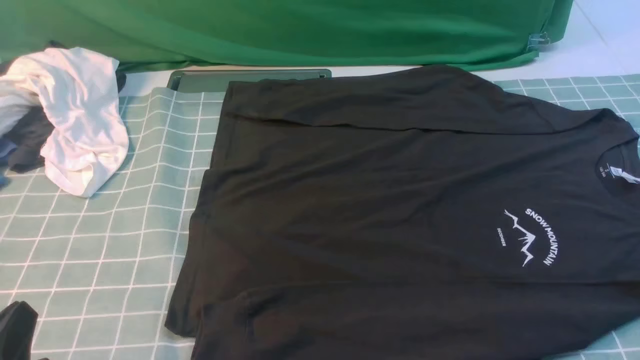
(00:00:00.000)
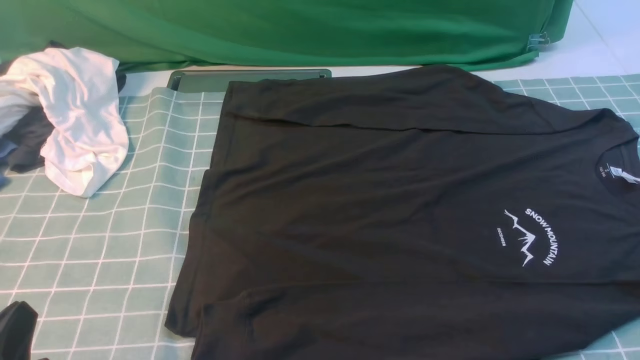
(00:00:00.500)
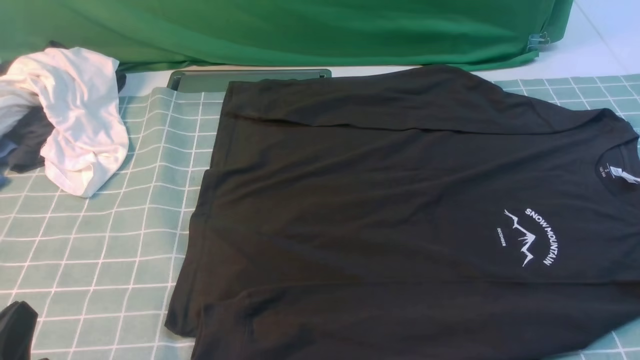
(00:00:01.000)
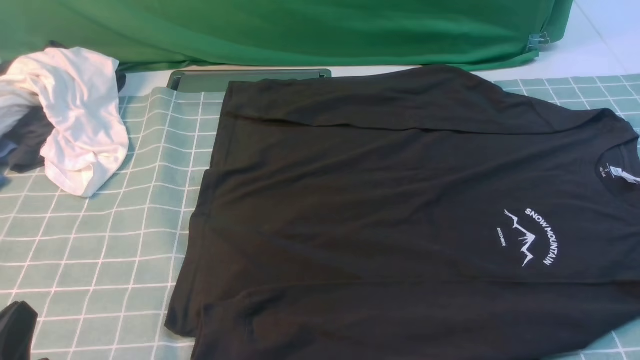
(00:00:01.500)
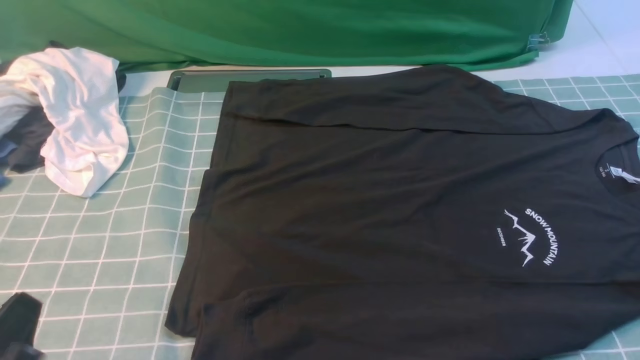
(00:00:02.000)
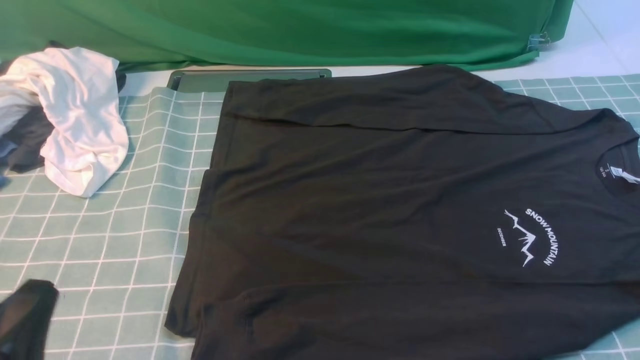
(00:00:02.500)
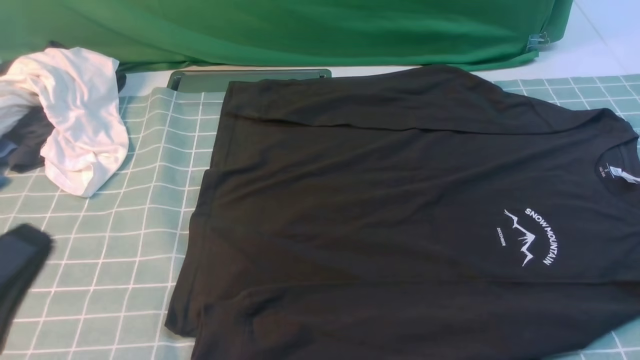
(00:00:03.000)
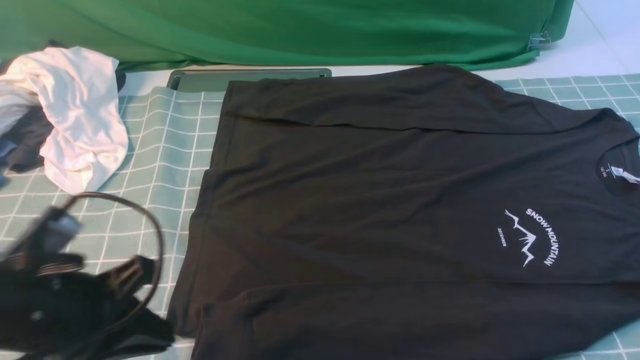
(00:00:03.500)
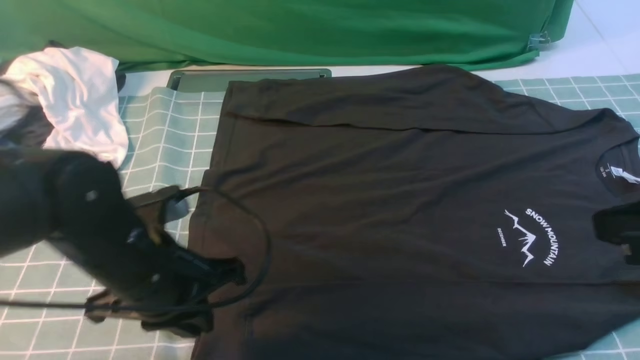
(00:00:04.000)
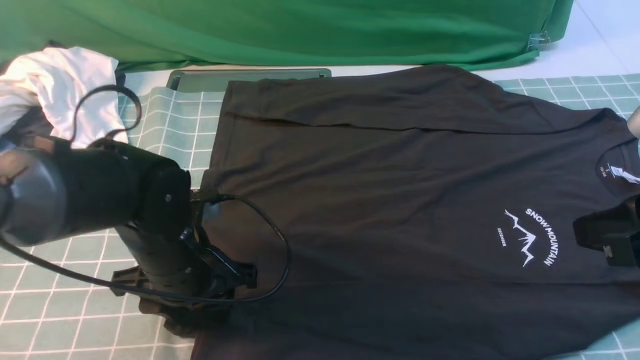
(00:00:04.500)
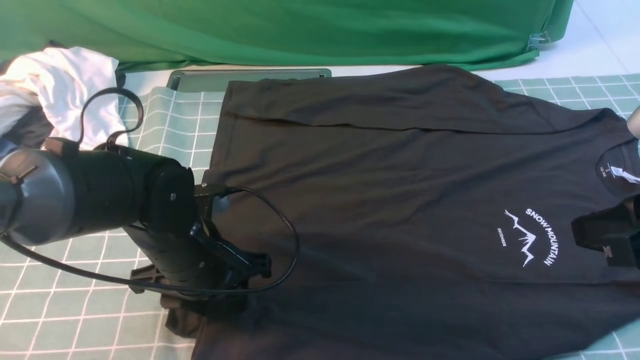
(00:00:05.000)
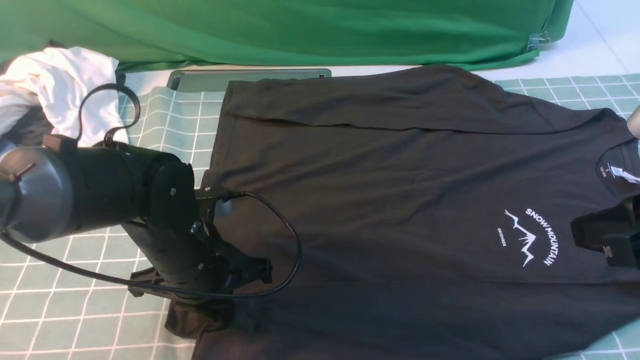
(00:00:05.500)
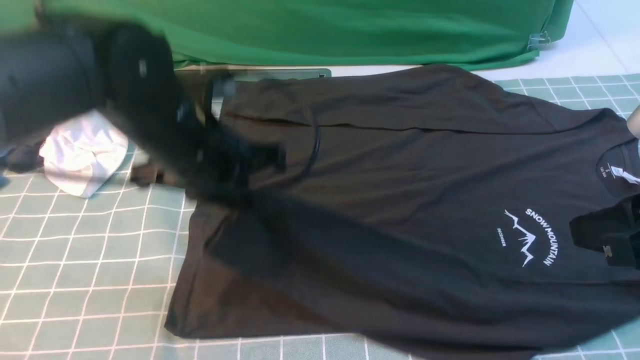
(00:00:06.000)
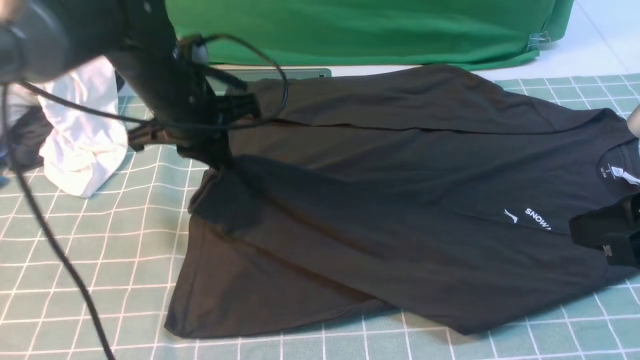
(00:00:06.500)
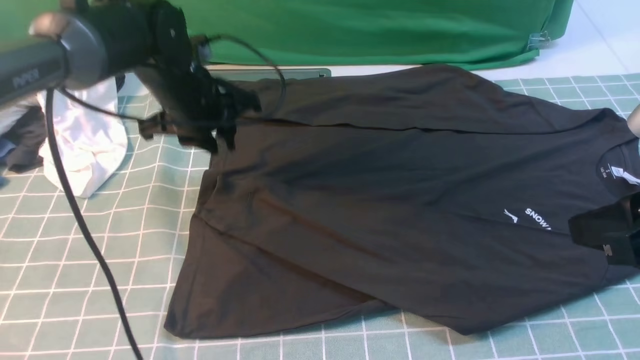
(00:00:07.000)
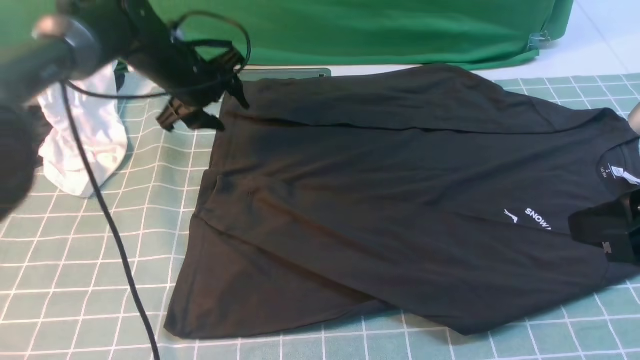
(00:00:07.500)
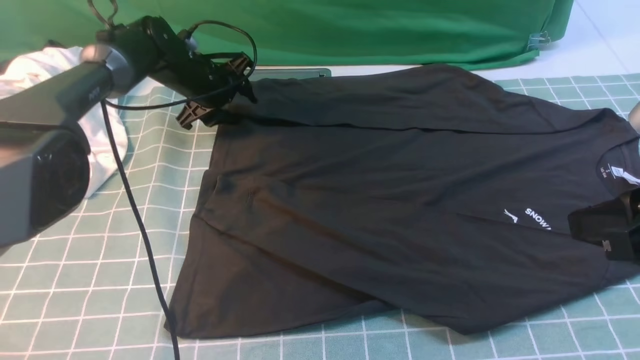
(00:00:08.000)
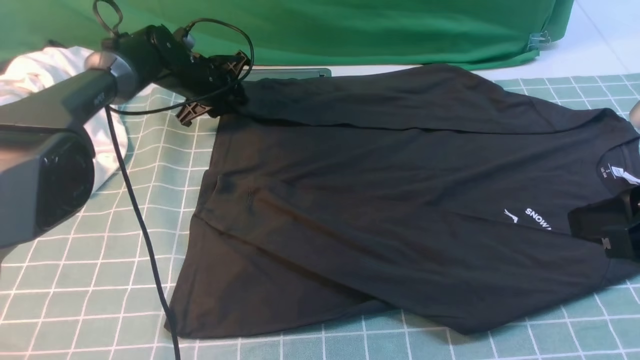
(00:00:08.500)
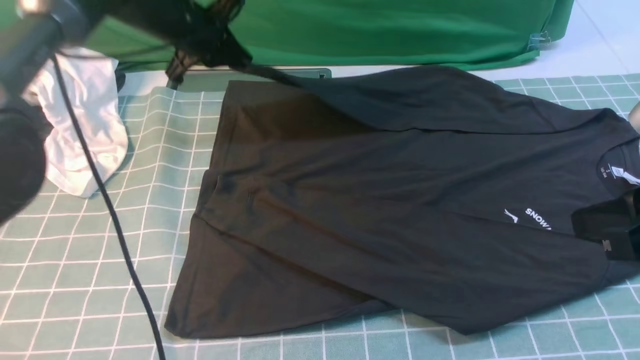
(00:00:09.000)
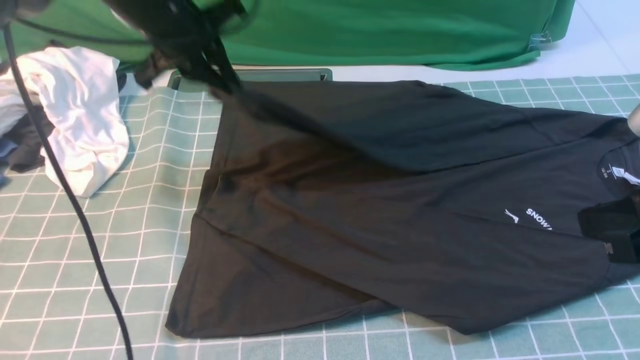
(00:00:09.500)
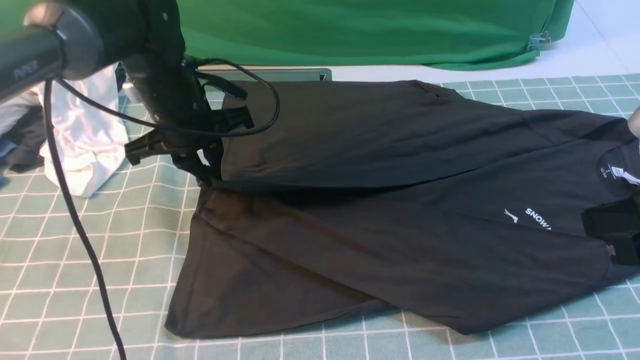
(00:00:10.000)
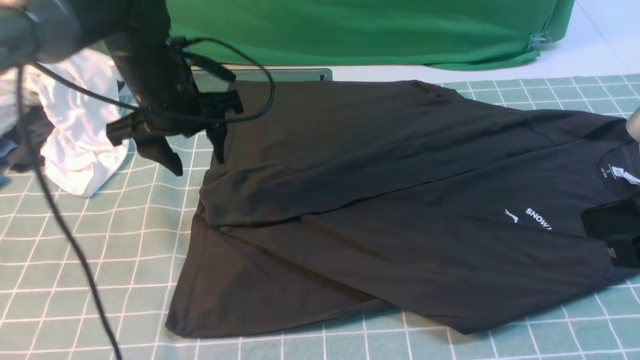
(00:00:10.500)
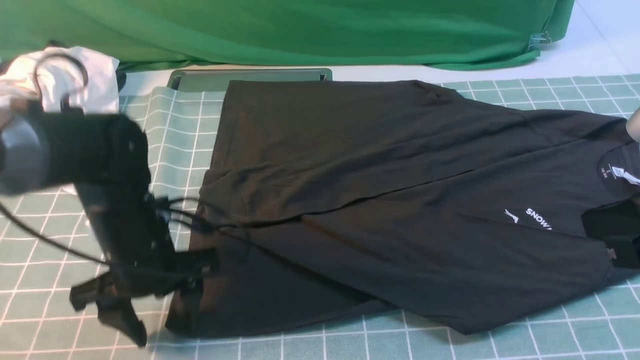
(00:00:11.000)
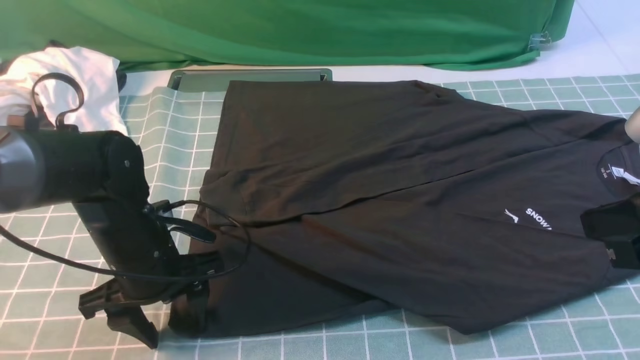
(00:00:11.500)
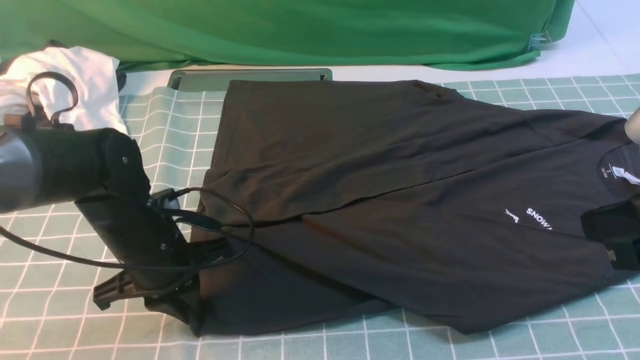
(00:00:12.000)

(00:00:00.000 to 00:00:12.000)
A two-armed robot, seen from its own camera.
Step, 00:00:00.000 - 00:00:05.000: use the left arm to clamp the cuff closest to it.
Step, 00:00:05.500 - 00:00:07.000: use the left arm to drag and place the cuff at the centered position on the left edge of the fabric.
Step, 00:00:07.500 - 00:00:08.500: use the left arm to clamp the cuff farthest from it.
Step, 00:00:09.000 - 00:00:10.000: use the left arm to drag and drop the cuff onto the cuff closest to the left arm.
00:00:02.000 - 00:00:04.000: The right gripper heads upward and forward, covering roughly 15 cm. The left gripper heads forward and to the right, covering approximately 20 cm.
00:00:04.000 - 00:00:06.000: The left gripper heads forward and upward, covering about 10 cm, and opens, then closes again.
00:00:06.000 - 00:00:08.000: The left gripper shifts approximately 25 cm forward and downward, and opens.
00:00:08.000 - 00:00:10.000: The right gripper closes its fingers. The left gripper heads backward and upward, covering about 15 cm, and closes its fingers.
00:00:10.000 - 00:00:12.000: The left gripper shifts roughly 15 cm backward and downward, and opens, then closes again.

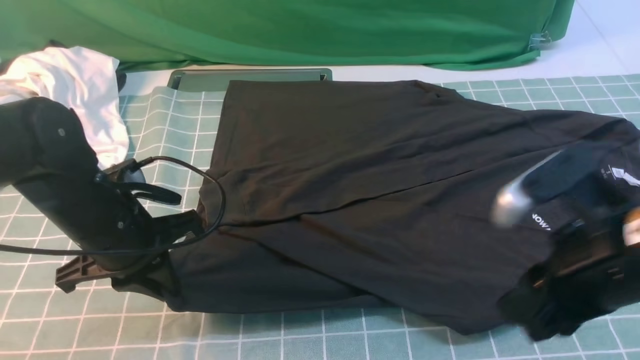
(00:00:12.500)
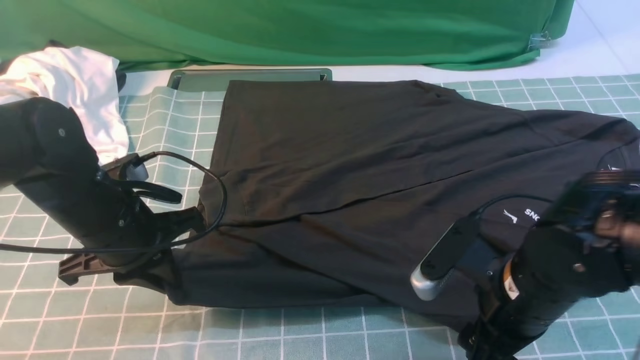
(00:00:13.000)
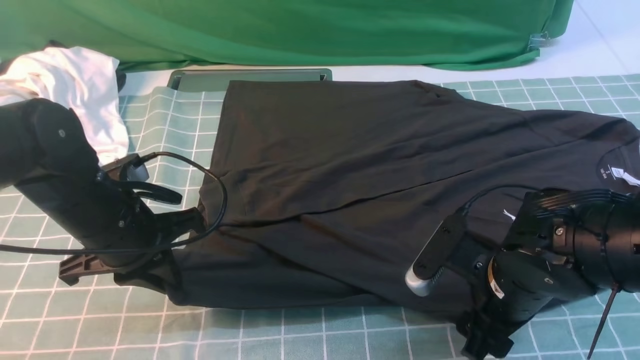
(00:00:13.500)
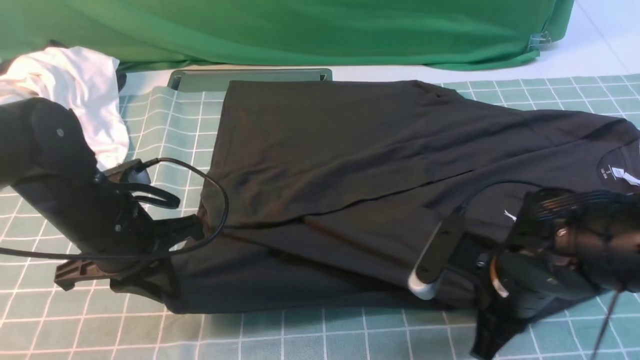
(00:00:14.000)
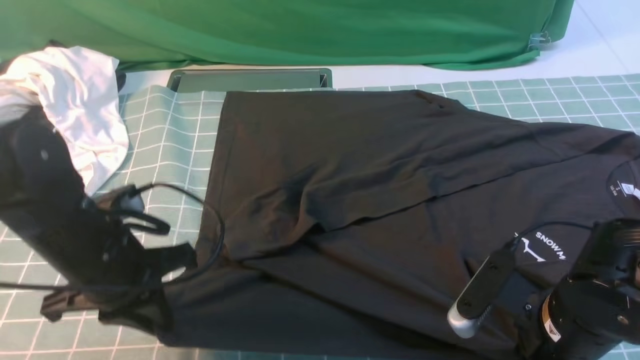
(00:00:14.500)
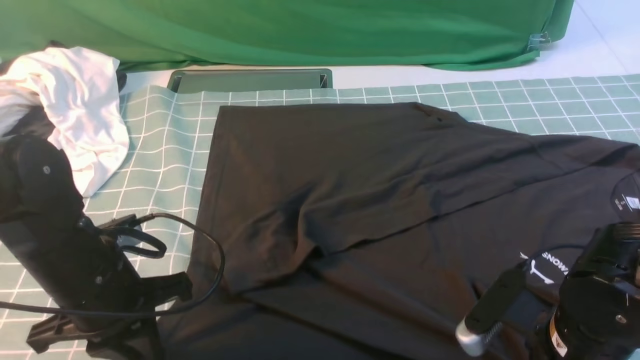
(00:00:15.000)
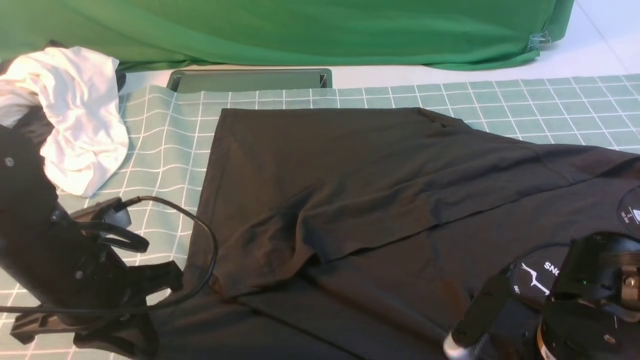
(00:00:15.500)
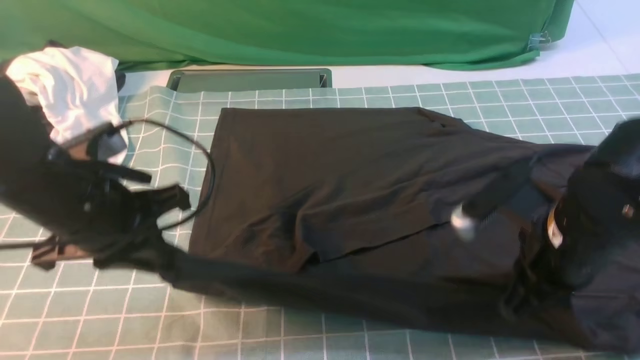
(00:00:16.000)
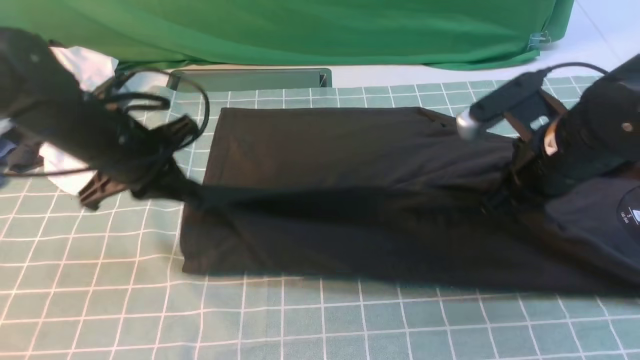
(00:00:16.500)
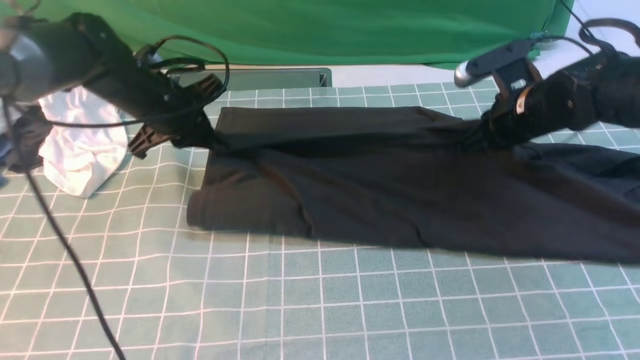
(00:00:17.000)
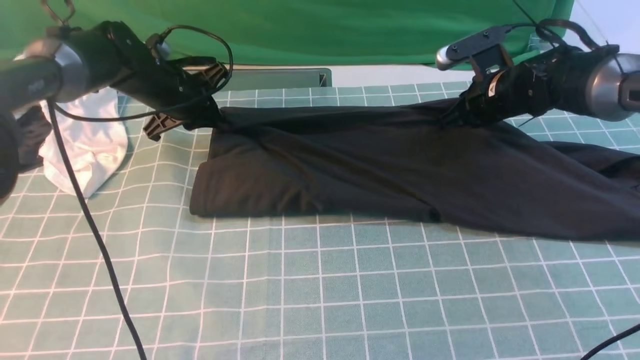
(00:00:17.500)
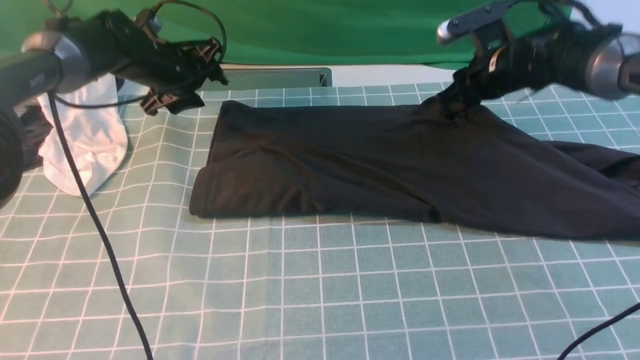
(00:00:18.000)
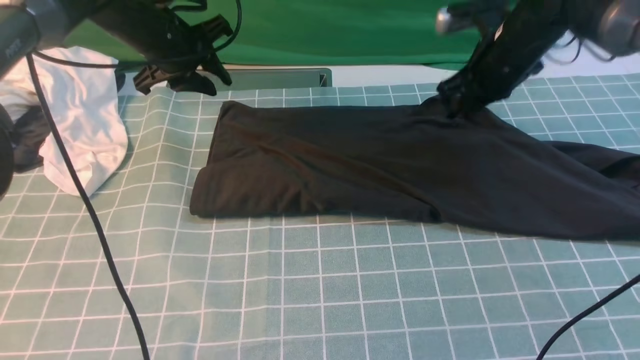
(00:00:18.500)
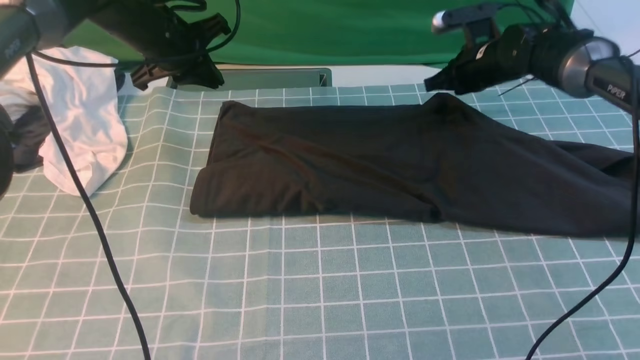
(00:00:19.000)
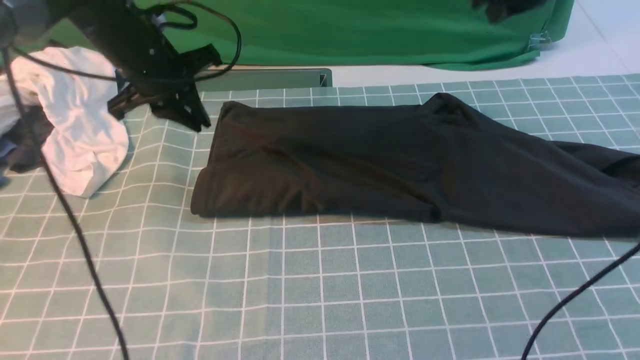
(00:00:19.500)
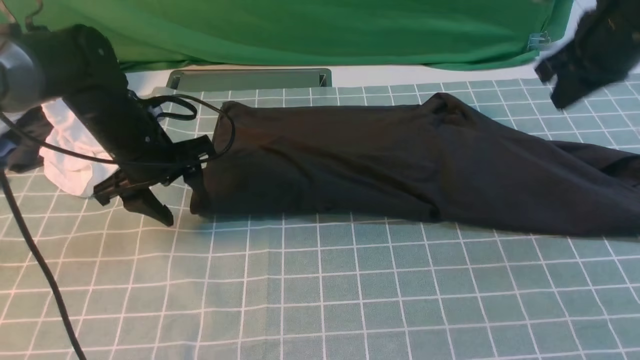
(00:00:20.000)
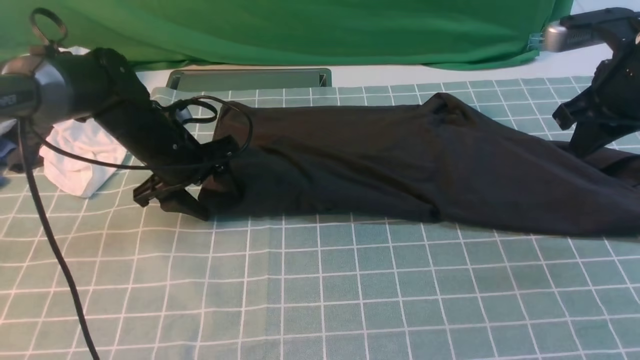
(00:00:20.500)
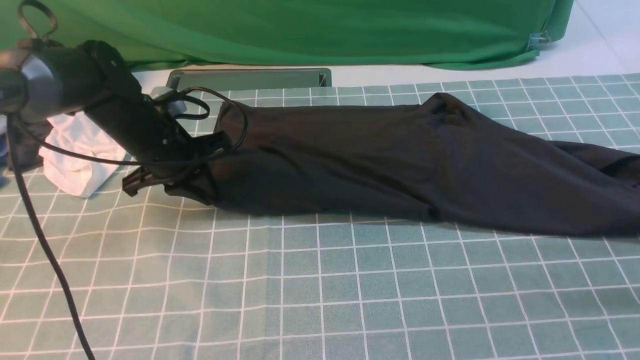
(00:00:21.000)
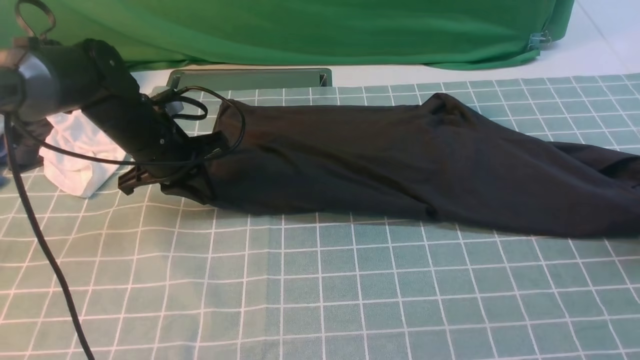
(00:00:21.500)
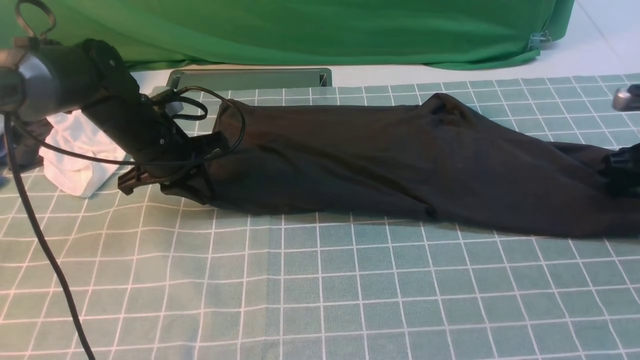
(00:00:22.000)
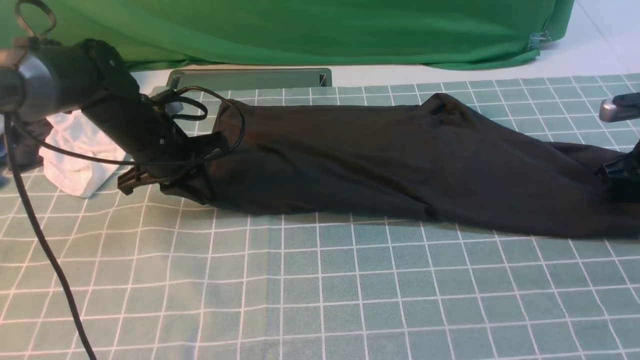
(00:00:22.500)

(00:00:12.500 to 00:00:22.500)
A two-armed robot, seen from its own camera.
Step, 00:00:12.500 - 00:00:14.500: use both arms simultaneously to clamp the lower edge of the clothing fabric.
Step, 00:00:15.000 - 00:00:18.000: use both arms to drag the lower edge of the fabric forward and fold it over the upper edge.
00:00:12.500 - 00:00:14.500: The right gripper shifts about 10 cm downward, and closes up.
00:00:14.500 - 00:00:16.500: The left gripper moves forward, approximately 10 cm. Meanwhile the right gripper goes roughly 15 cm forward and upward.
00:00:16.500 - 00:00:18.500: Both grippers travel together forward, about 15 cm. The left gripper opens.
00:00:18.500 - 00:00:20.500: The right gripper is displaced backward, upward and to the right by approximately 15 cm. The left gripper moves downward and backward, some 15 cm, and opens its fingers.
00:00:20.500 - 00:00:22.500: The right gripper goes roughly 20 cm downward and to the right, and opens up, while the left gripper closes.
